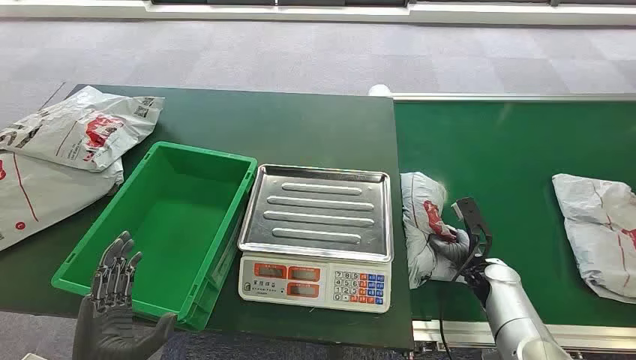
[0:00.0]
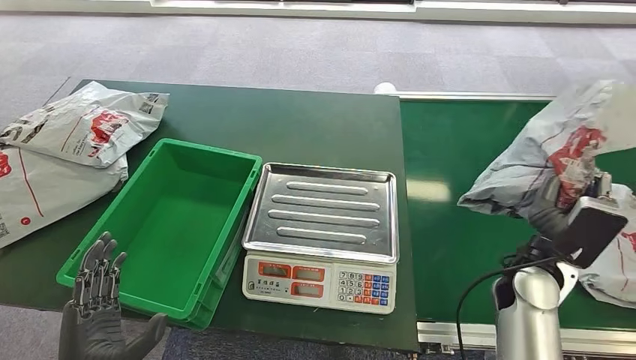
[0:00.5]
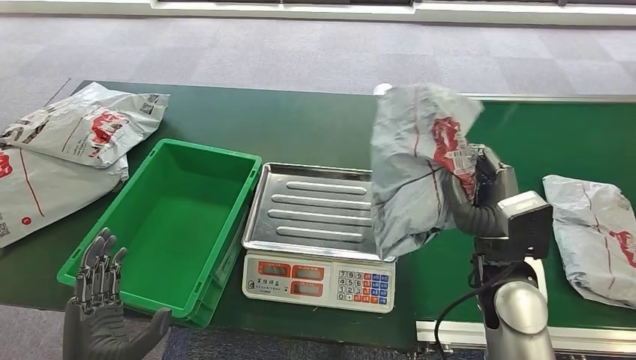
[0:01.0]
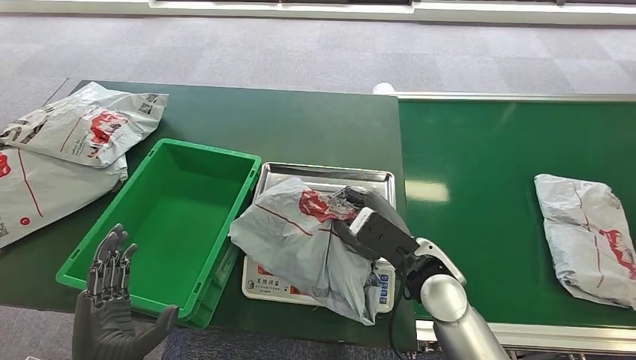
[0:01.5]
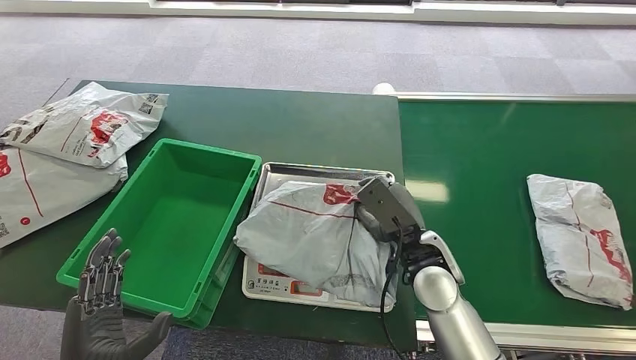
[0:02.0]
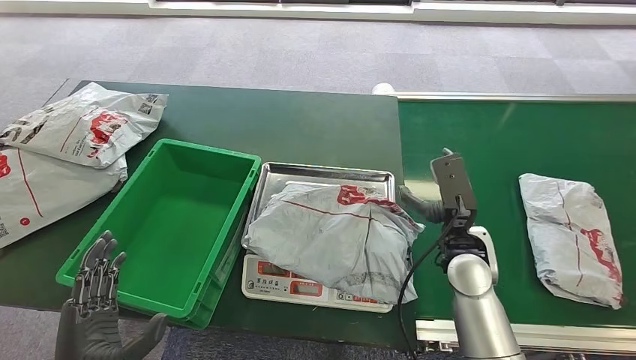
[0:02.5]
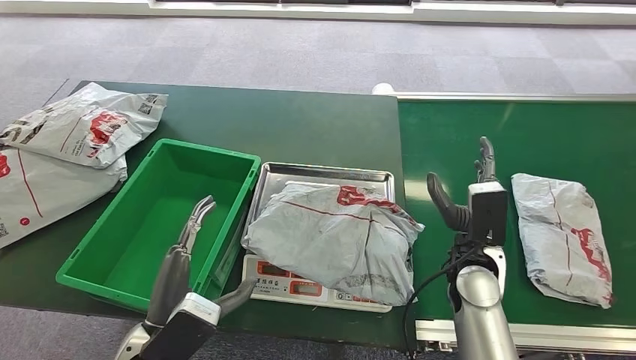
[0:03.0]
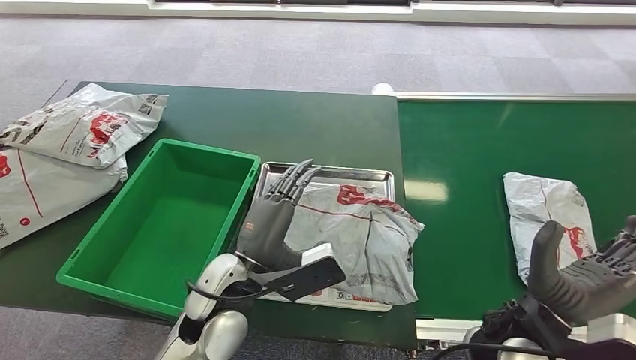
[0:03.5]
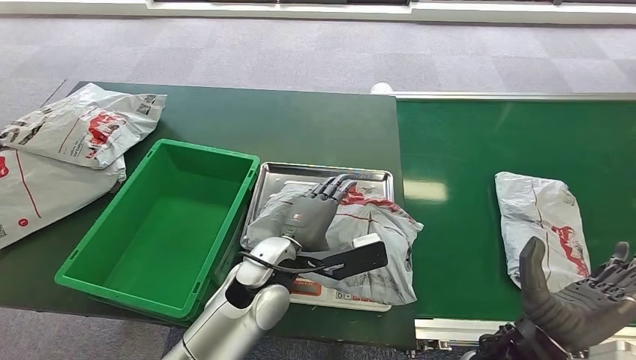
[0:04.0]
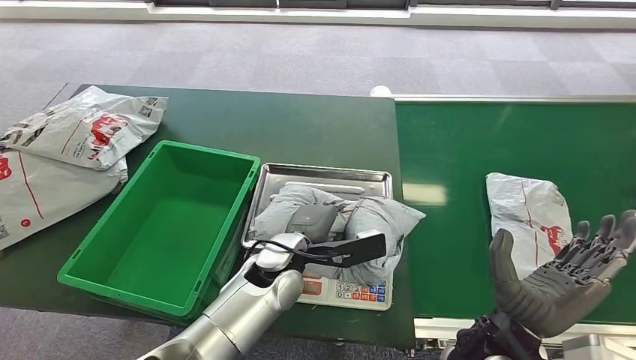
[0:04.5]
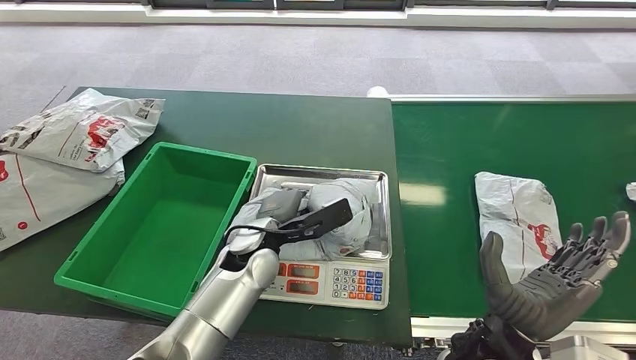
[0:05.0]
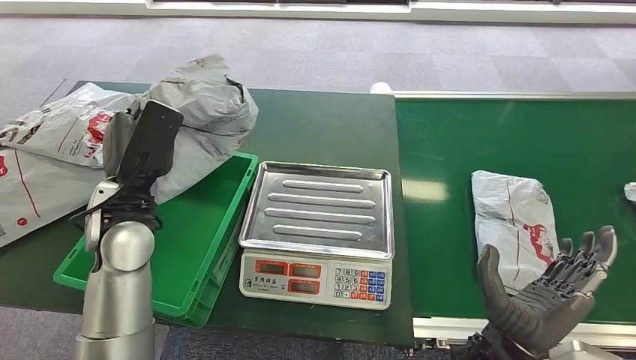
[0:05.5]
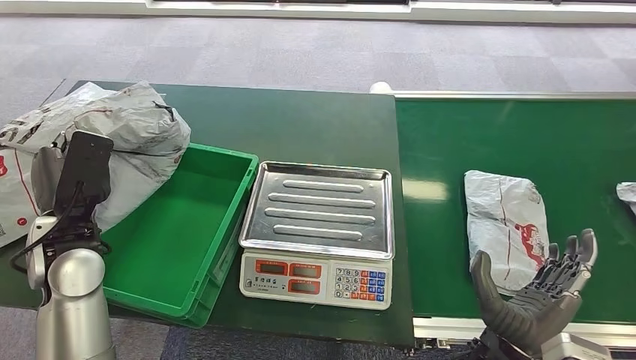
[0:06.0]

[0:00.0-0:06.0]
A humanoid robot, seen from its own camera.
Step, 0:00.0 to 0:00.5: Pick up the package from the conveyor belt.
Step, 0:01.0 to 0:02.5: Place the package onto the inbound machine.
Step, 0:03.5 to 0:05.0: Pick up the package from the inbound machine.
